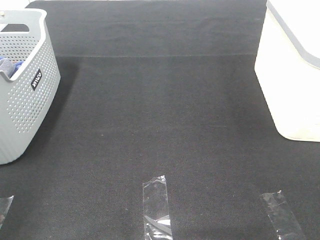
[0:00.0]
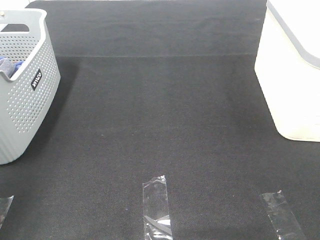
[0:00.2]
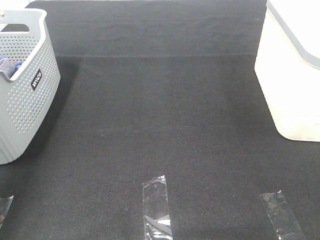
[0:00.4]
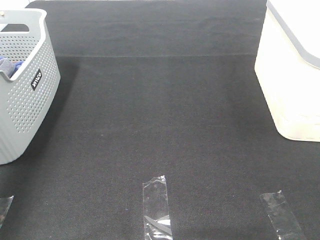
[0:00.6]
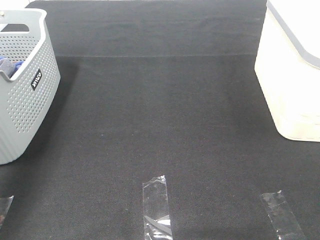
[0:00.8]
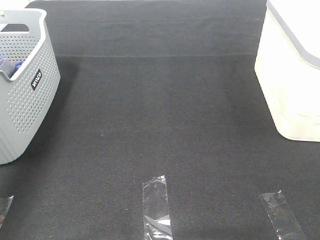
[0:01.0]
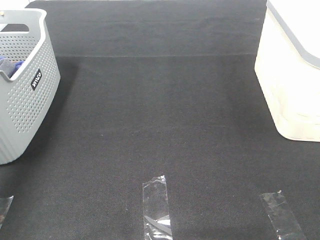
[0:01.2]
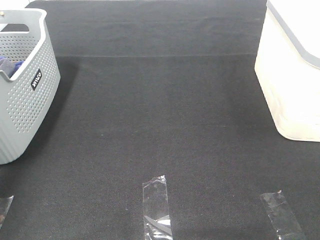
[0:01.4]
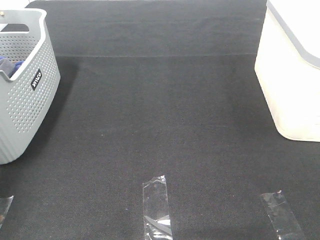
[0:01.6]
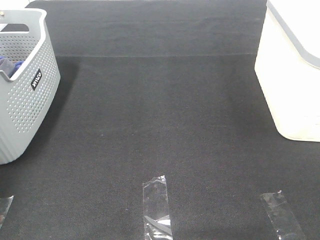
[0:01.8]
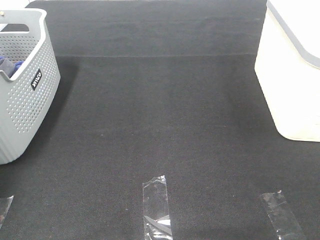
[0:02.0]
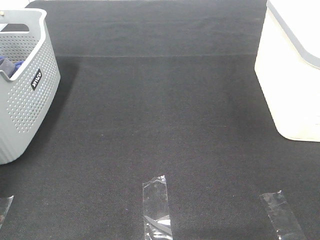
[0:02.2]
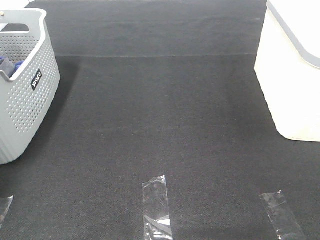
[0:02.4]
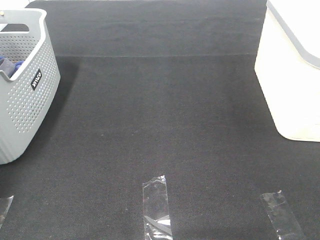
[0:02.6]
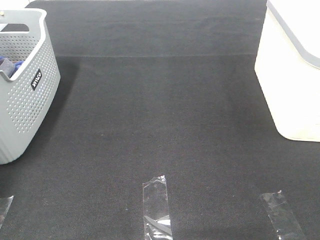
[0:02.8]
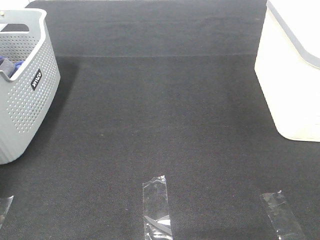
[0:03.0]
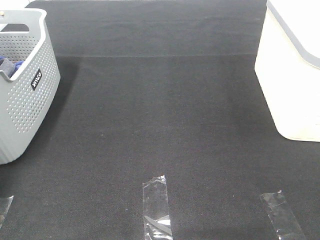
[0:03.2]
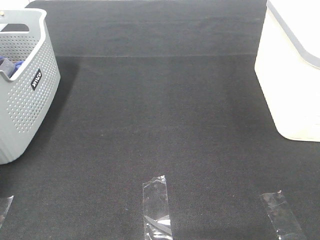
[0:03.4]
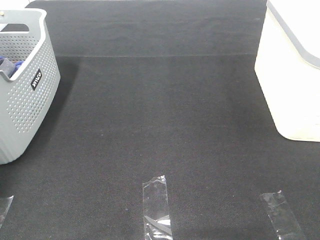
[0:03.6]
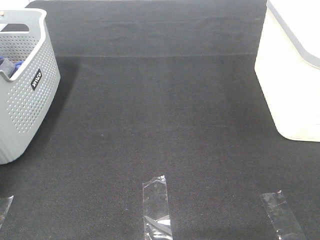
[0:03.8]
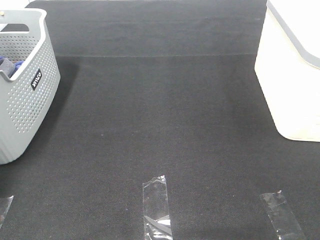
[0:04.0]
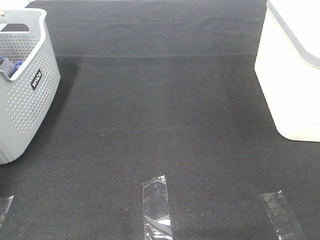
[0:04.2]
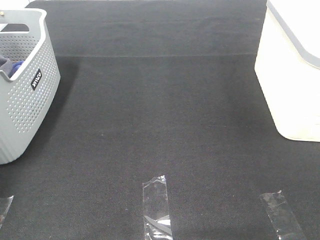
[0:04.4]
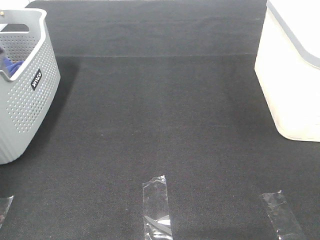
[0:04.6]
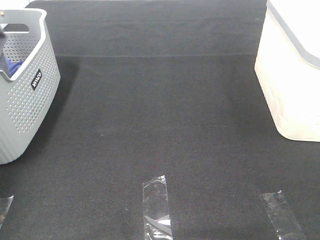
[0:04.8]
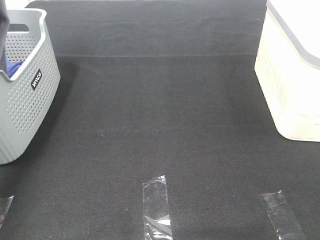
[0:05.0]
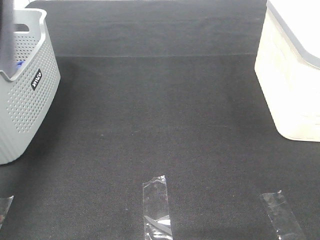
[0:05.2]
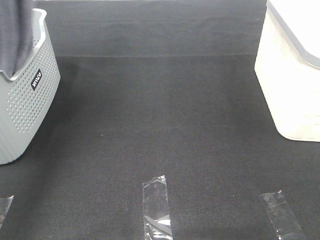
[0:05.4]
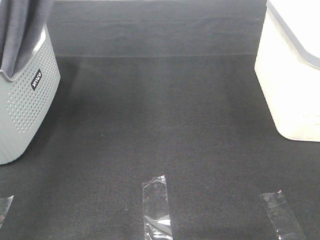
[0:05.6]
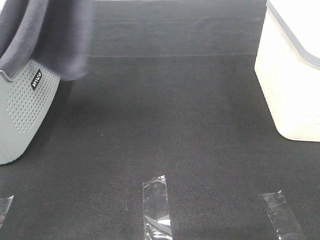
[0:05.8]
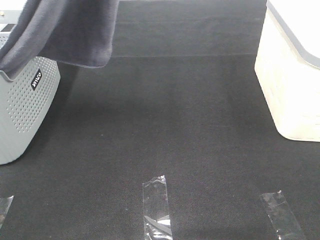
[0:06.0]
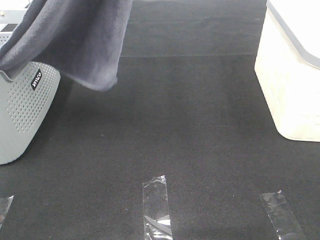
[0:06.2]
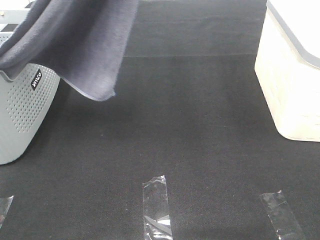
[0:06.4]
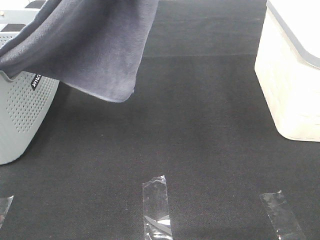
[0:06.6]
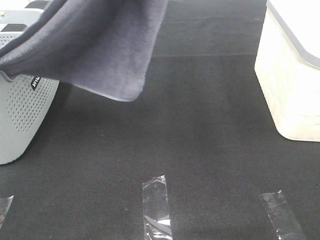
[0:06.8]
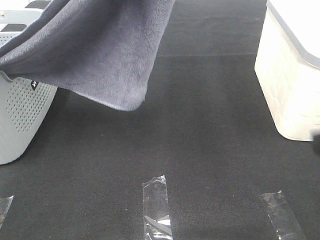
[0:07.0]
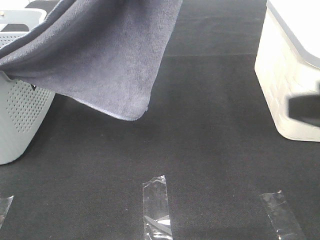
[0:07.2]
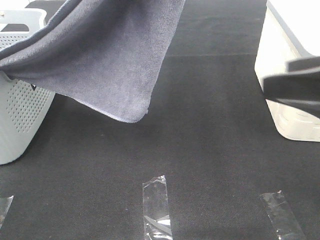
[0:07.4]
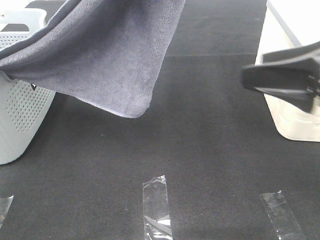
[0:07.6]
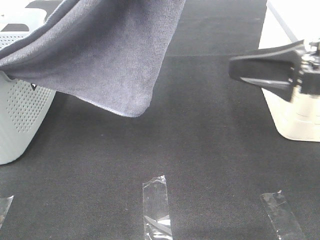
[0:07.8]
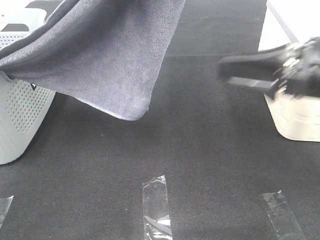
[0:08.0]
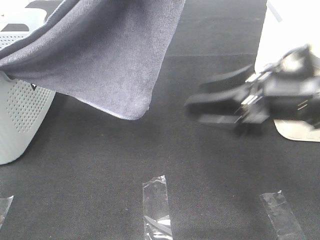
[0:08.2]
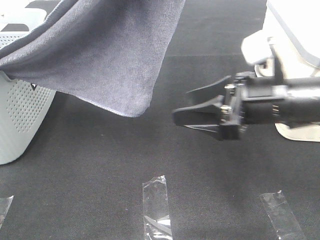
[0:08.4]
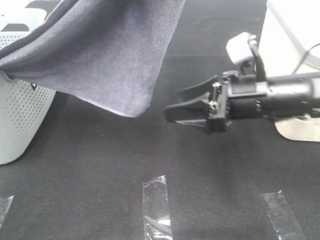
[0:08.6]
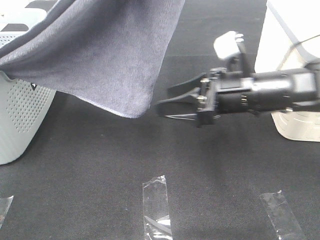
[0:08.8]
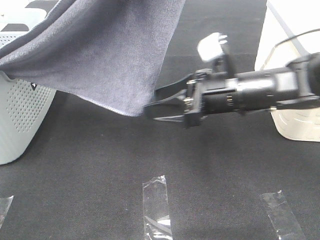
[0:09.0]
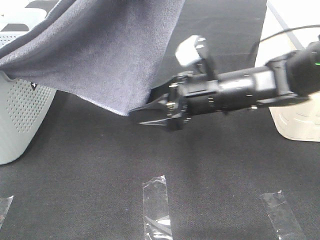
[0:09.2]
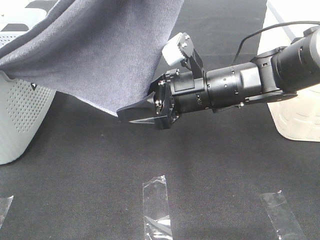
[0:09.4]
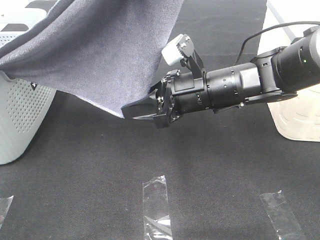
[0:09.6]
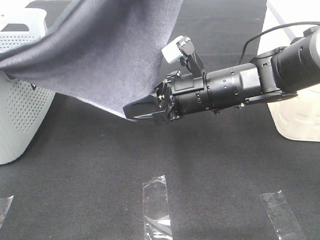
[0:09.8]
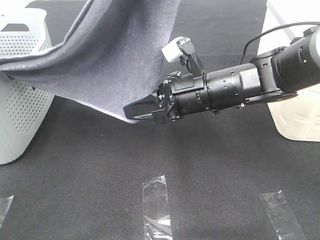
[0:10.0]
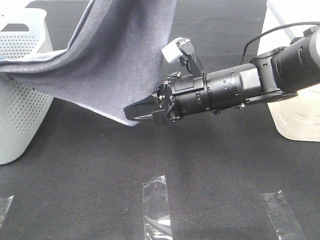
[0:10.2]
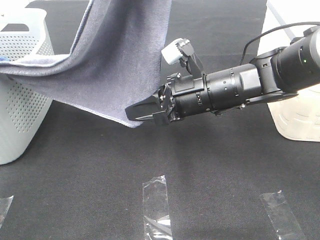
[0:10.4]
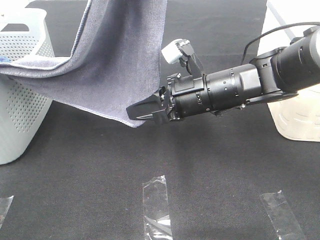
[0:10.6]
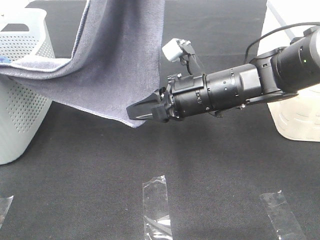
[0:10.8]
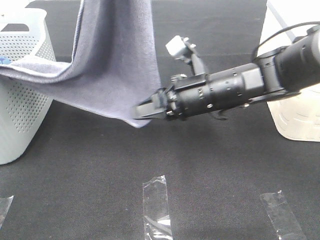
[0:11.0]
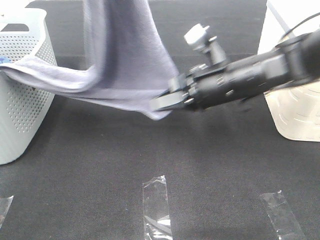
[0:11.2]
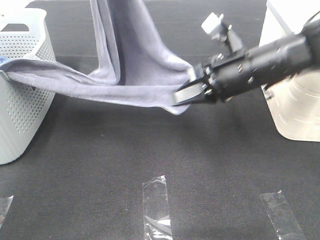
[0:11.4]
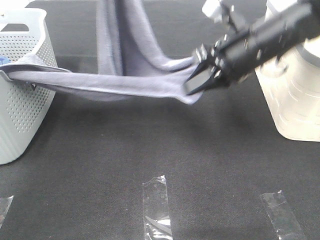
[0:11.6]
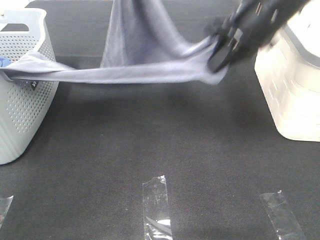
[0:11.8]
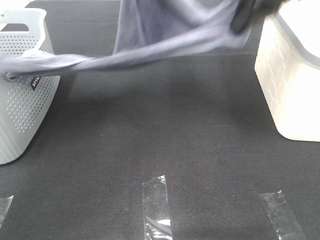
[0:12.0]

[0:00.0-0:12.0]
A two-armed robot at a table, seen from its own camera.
Task of the whole recording: Remove the towel and place it.
Step, 5.6 to 9.0 s: Right hand: grab a corner of the grey towel and straighten it.
0.0 to 1.6 s: The left gripper moves forward, approximately 35 cm.
4.4 to 6.0 s: The left gripper moves to the right, upward and backward, roughly 40 cm.
6.0 to 7.6 s: The right gripper moves forward, some 20 cm, while the left gripper heads to the right, covering roughly 5 cm.
7.6 to 9.0 s: The right gripper is displaced downward, to the left and forward by about 20 cm.
9.0 to 10.4 s: The right gripper closes up.
10.4 to 12.0 s: The right gripper is displaced upward and to the right by some 25 cm. The left gripper moves forward and downward, approximately 15 cm.

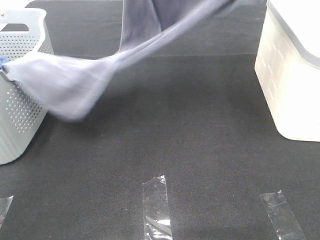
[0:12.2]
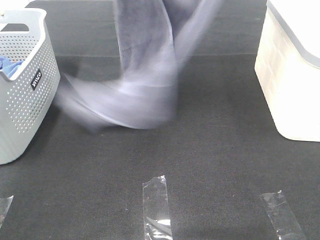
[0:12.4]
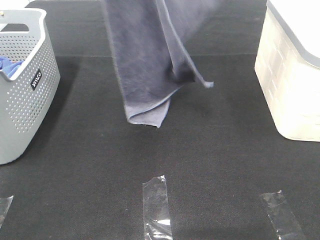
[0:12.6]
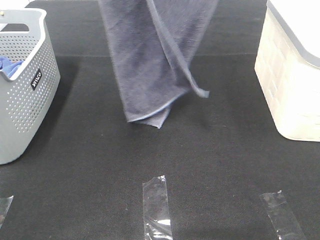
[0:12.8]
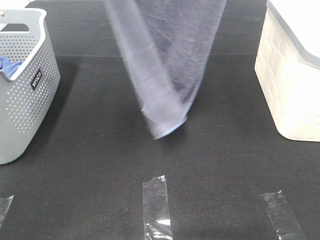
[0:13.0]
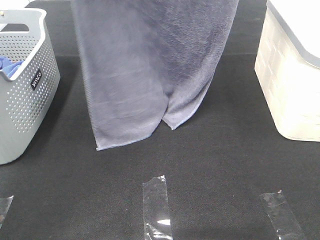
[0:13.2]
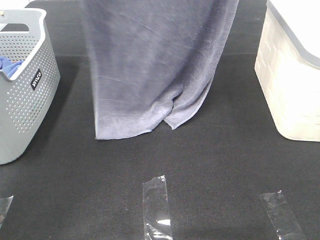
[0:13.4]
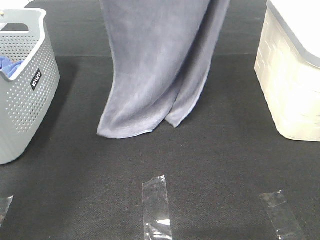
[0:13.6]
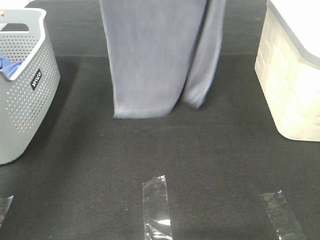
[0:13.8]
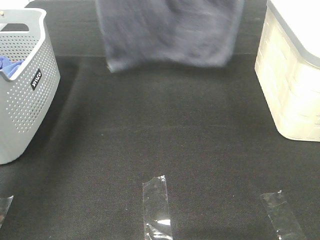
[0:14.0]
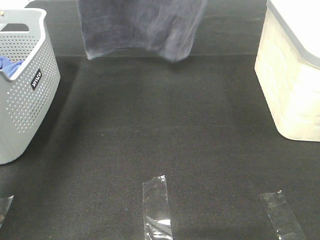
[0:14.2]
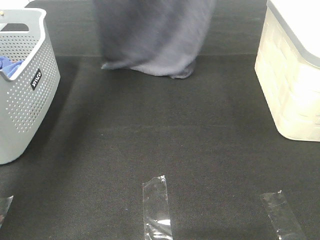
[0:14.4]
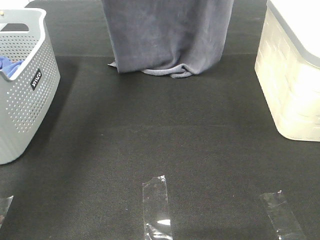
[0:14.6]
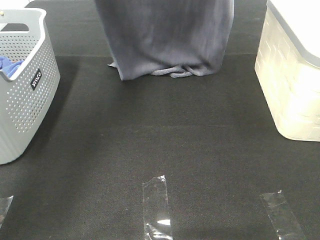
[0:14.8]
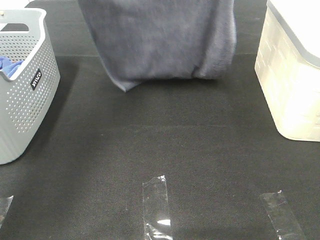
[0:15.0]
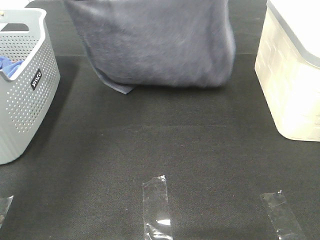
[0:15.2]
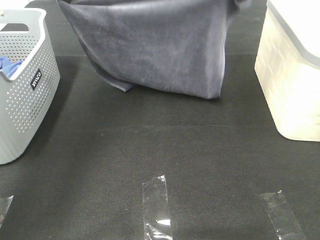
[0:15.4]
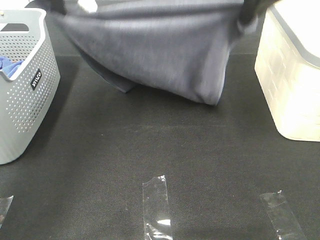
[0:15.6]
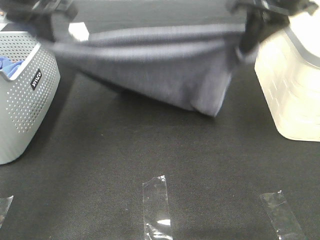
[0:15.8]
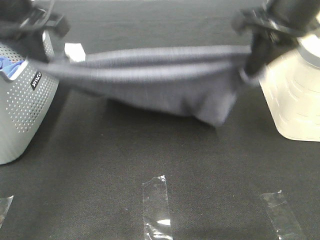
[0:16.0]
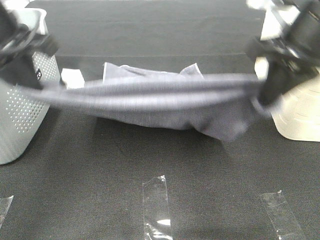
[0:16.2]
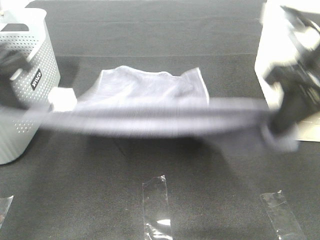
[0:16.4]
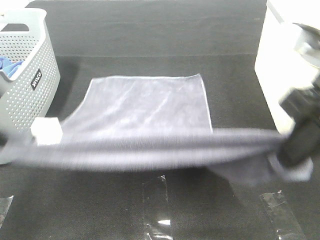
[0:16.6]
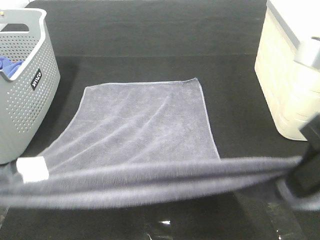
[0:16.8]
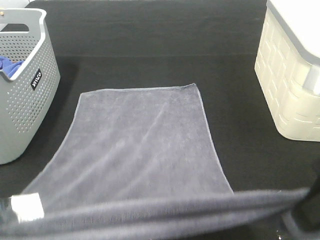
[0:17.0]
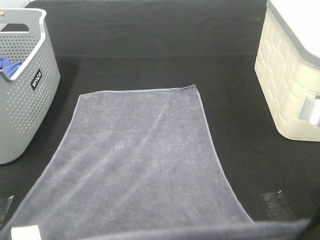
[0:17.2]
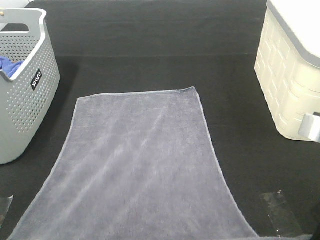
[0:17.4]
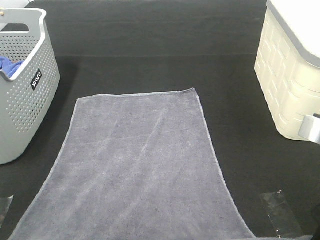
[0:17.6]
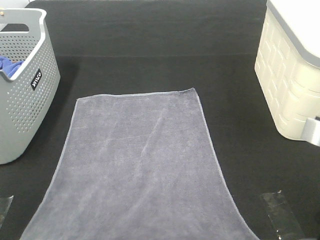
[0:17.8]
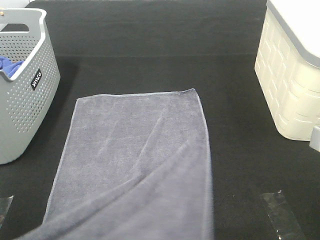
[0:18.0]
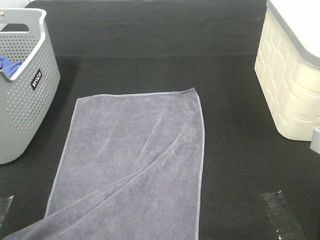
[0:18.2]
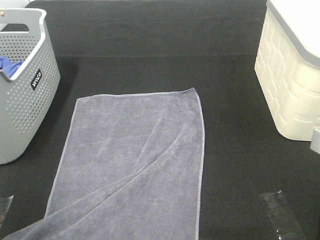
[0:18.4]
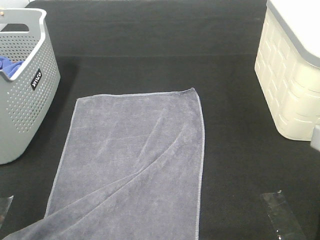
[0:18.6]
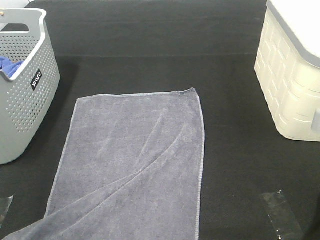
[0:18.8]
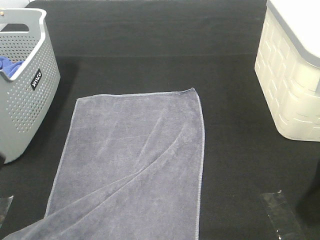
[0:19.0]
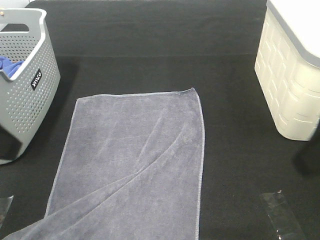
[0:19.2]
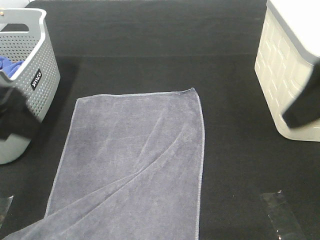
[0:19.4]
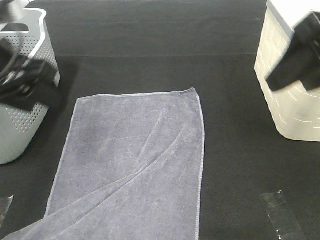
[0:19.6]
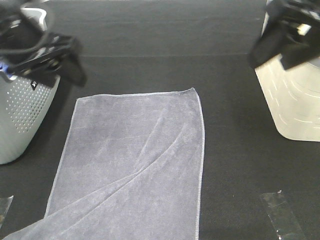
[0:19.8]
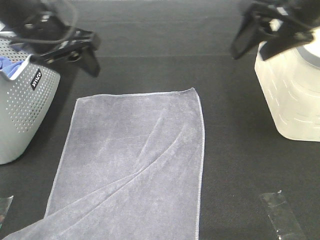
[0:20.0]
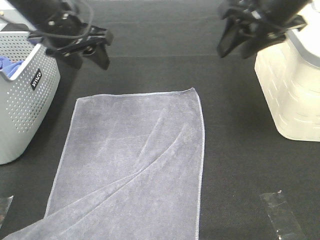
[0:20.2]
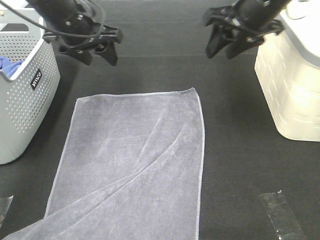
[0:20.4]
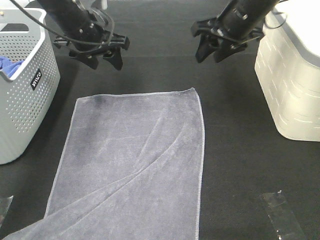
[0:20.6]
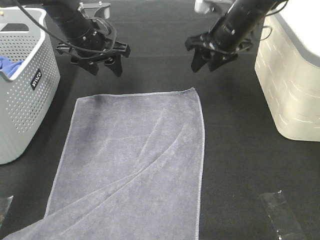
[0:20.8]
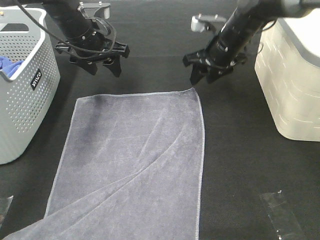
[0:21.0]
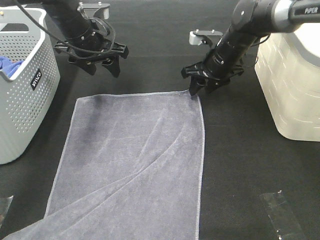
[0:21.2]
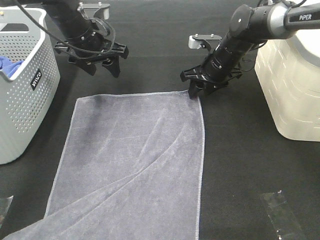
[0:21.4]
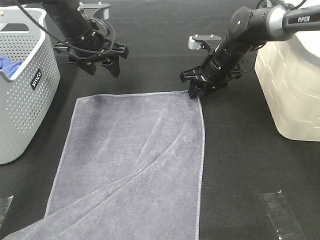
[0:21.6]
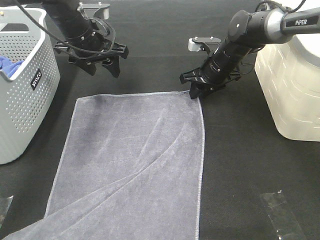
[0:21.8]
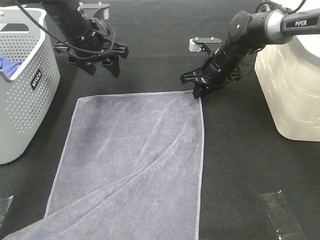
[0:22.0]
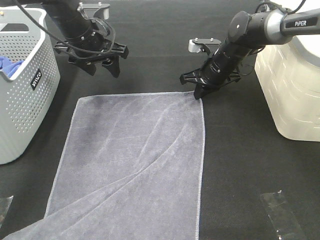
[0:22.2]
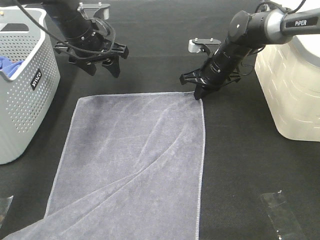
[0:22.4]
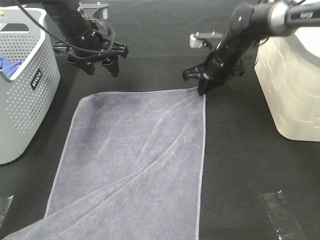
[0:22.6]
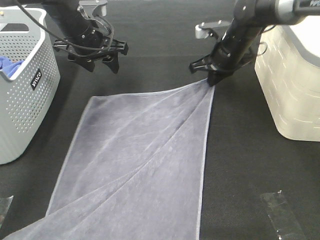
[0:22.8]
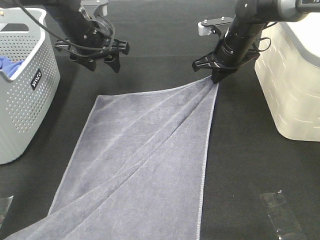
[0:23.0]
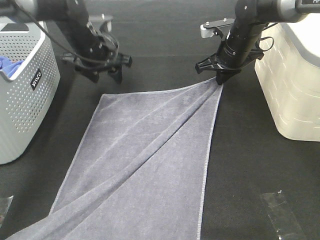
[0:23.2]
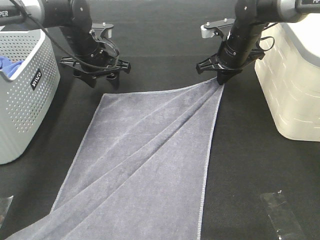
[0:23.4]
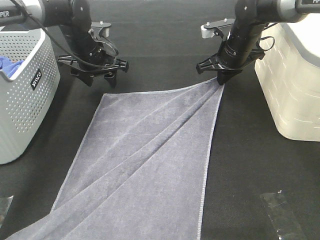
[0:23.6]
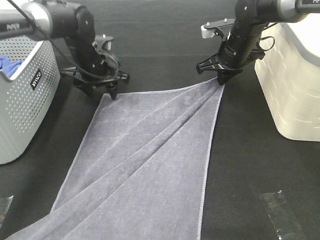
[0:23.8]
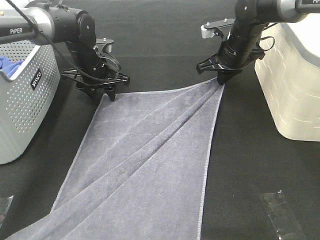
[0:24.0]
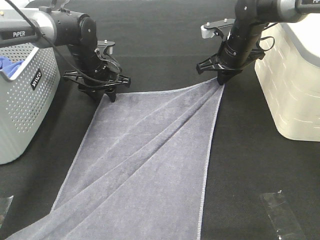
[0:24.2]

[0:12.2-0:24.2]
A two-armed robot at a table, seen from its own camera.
Task of the whole recording: Remove the towel and place it.
Step, 13.2 to 22.0 s: Left hand:adjust the gray towel.
Step, 13.2 to 22.0 s: Right hand:adjust the gray towel.
12.2 to 13.8 s: The left gripper goes roughly 15 cm to the left and forward, while the right gripper travels upward and forward by approximately 10 cm.
13.8 to 15.2 s: Both grippers travel together downward, about 10 cm.
15.2 to 16.6 s: The right gripper heads backward and downward, covering approximately 25 cm, while the left gripper heads backward, covering approximately 25 cm.
16.6 to 18.2 s: The two grippers go about 10 cm backward and downward. The right gripper opens up; the left gripper opens its fingers.
18.2 to 19.8 s: The left gripper travels forward by roughly 20 cm, while the right gripper moves forward and upward, approximately 20 cm.
19.8 to 21.2 s: The right gripper shifts about 30 cm downward and forward. The left gripper travels forward and downward by roughly 15 cm.
21.2 to 22.6 s: The right gripper closes its fingers.
22.6 to 24.2 s: The left gripper goes about 10 cm downward.
